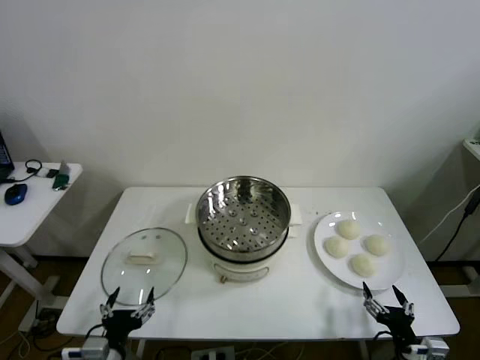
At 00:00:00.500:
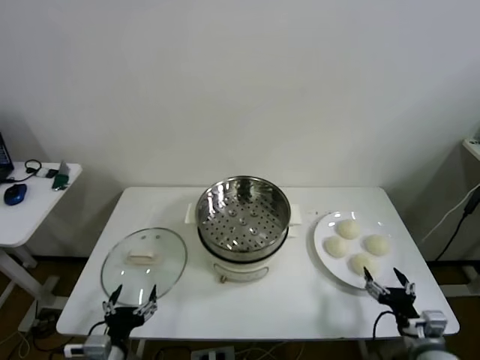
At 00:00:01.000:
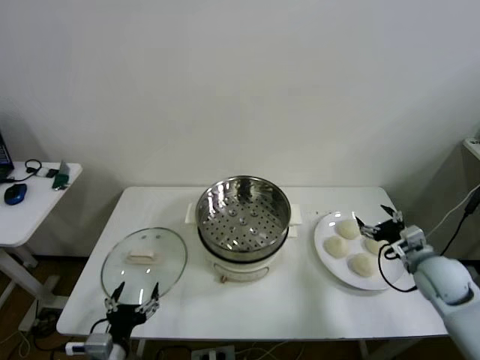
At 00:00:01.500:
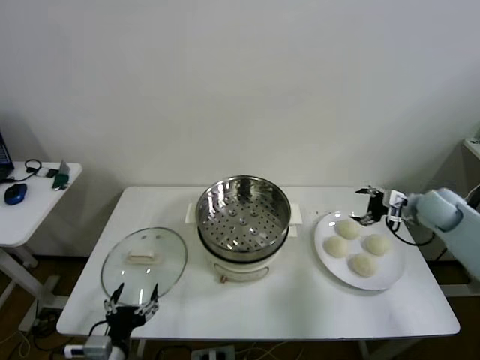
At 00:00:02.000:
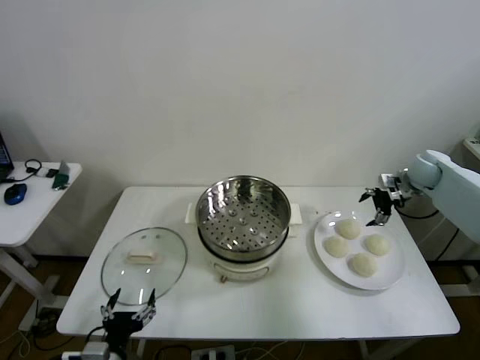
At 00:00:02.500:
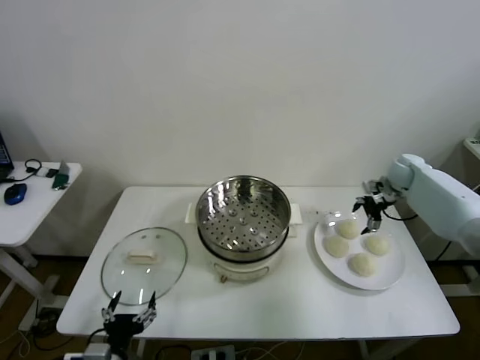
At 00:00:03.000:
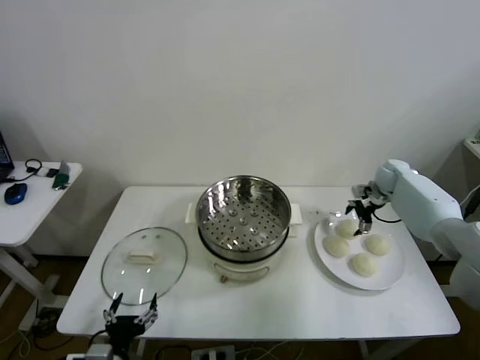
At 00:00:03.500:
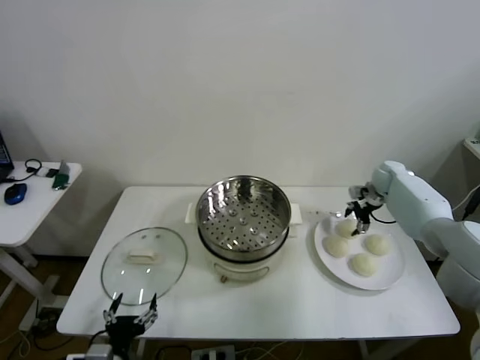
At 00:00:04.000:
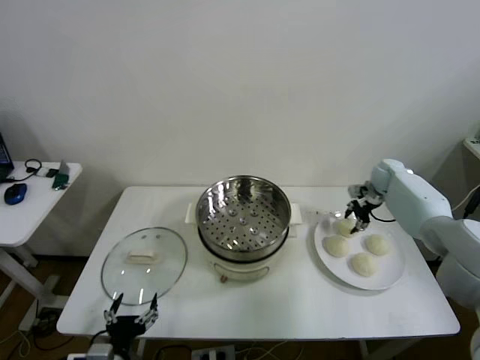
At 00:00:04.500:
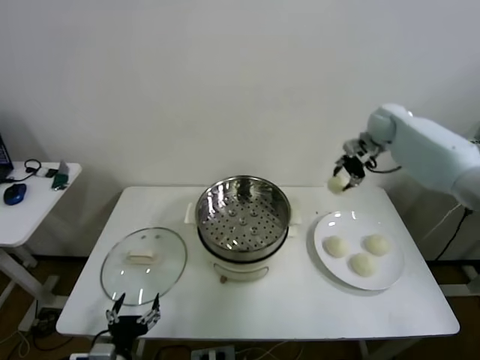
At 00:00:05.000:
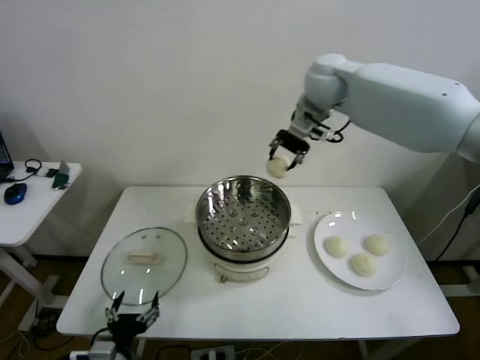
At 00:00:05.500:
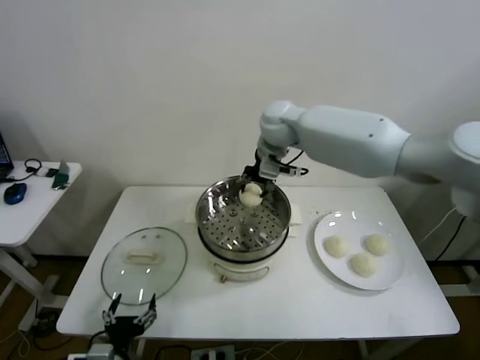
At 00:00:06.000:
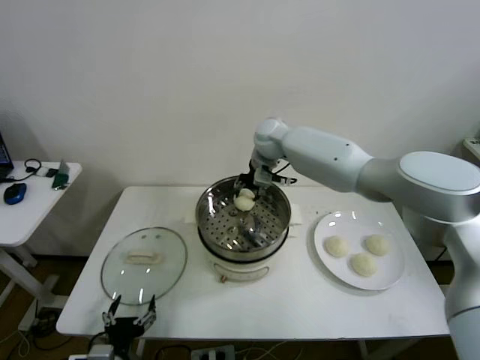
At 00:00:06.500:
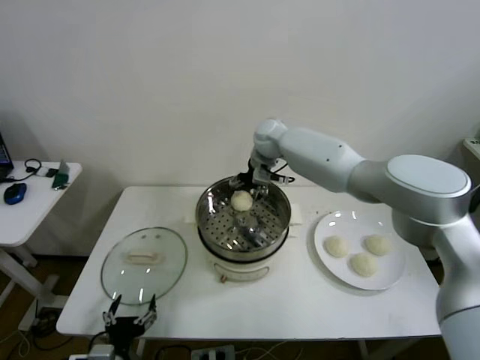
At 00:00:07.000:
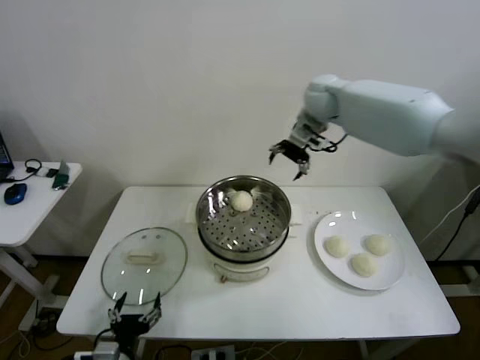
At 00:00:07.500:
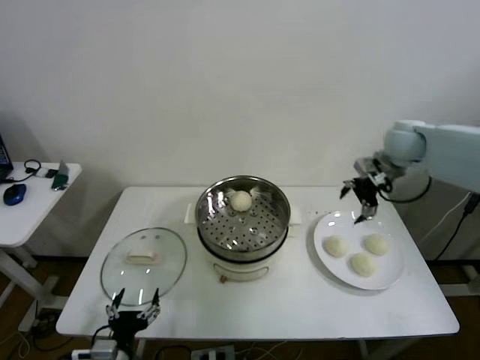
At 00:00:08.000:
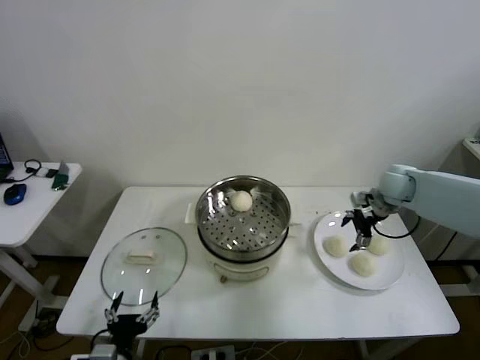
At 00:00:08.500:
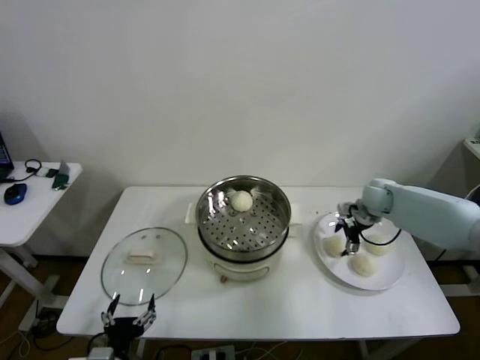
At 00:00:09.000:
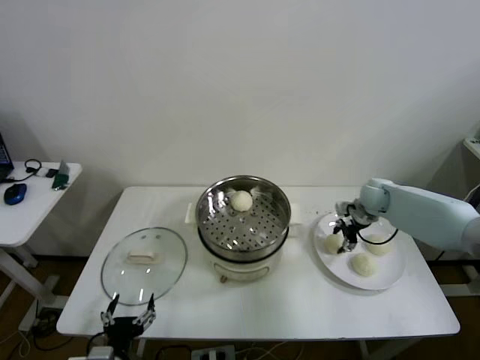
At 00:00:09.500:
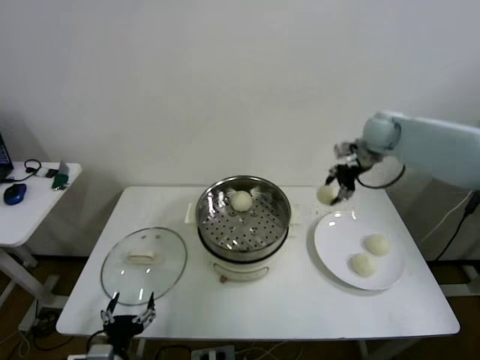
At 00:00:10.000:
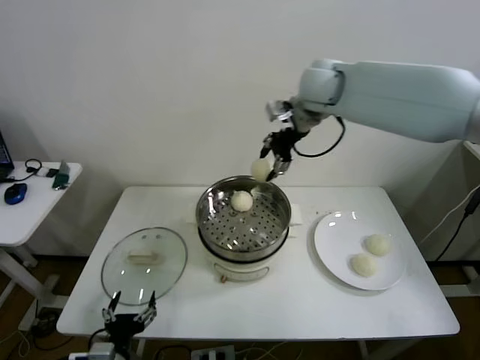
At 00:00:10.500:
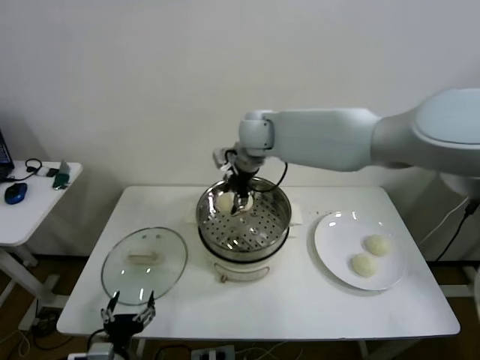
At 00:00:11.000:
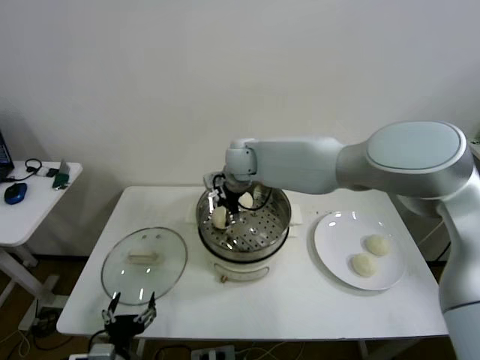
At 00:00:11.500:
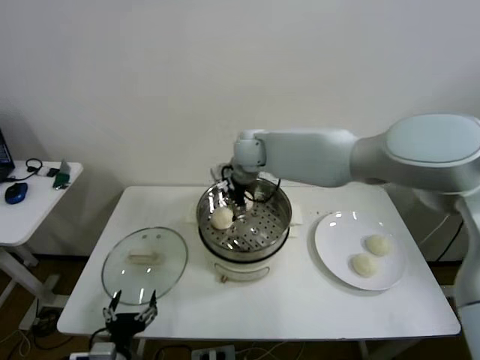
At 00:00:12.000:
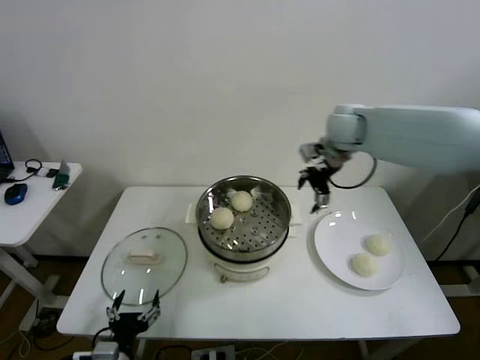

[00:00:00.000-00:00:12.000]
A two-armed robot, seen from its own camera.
Step, 00:00:00.000 to 00:00:03.500: Grasp the baozi in the plate with right gripper.
Step, 00:00:04.000 to 00:00:06.000: Place the baozi on the steamer with right gripper.
Step, 00:00:06.500 to 00:00:09.000: Grasp the baozi in the plate with right gripper.
Step, 00:00:09.500 to 00:00:11.000: Place the baozi on the steamer with right gripper.
00:00:02.000 to 00:00:04.000: The right gripper travels downward by about 5 cm, and closes up.
00:00:04.000 to 00:00:06.000: The right gripper moves to the left, about 35 cm.
00:00:06.000 to 00:00:08.000: The right gripper goes about 30 cm to the right, and opens up.
00:00:08.000 to 00:00:10.000: The right gripper moves to the left and upward, roughly 35 cm, and closes.
00:00:10.000 to 00:00:12.000: The right gripper travels to the right and downward by roughly 15 cm, and opens.

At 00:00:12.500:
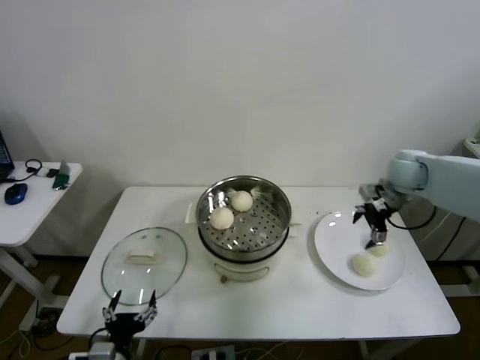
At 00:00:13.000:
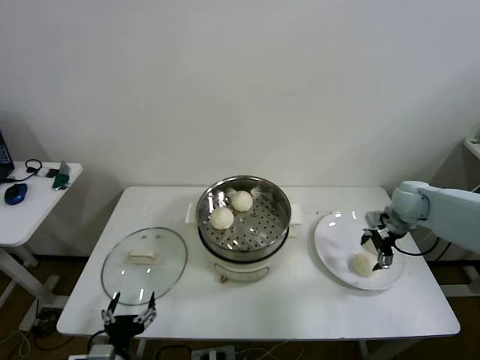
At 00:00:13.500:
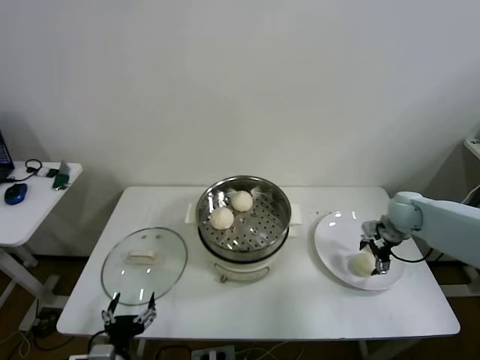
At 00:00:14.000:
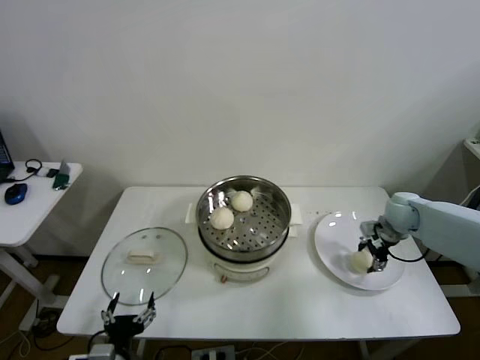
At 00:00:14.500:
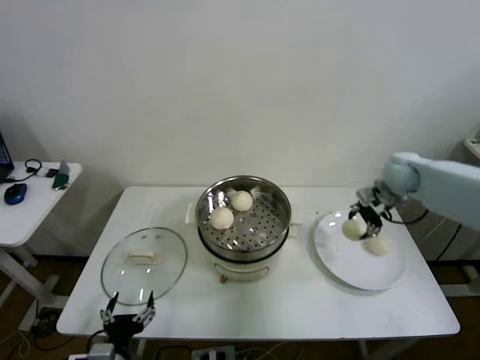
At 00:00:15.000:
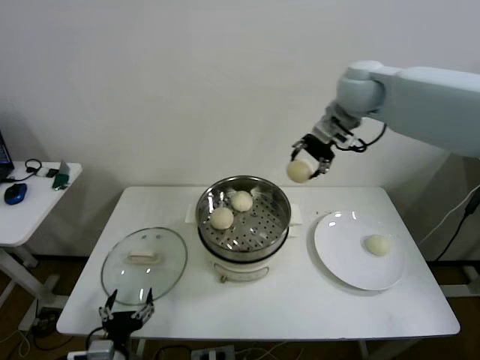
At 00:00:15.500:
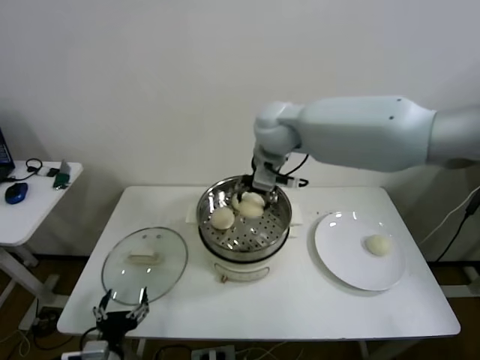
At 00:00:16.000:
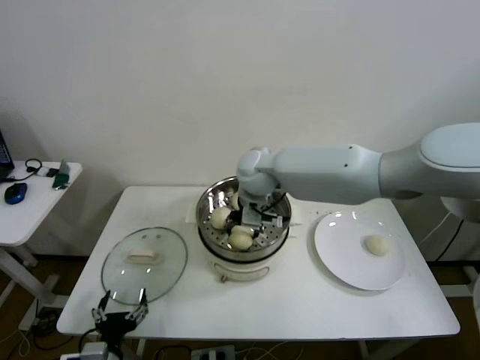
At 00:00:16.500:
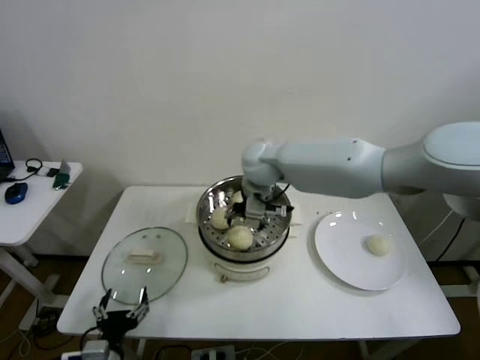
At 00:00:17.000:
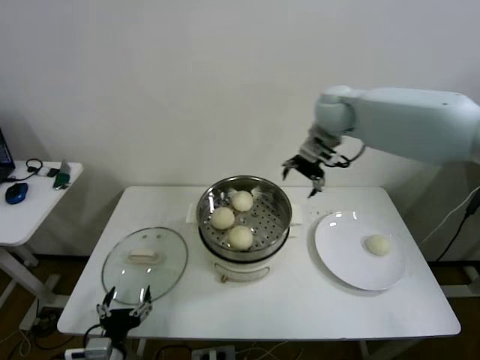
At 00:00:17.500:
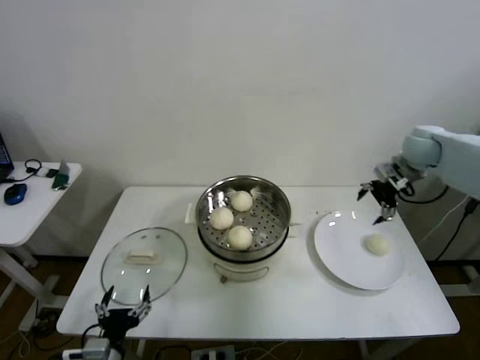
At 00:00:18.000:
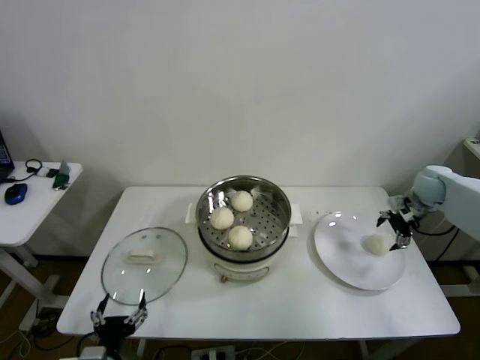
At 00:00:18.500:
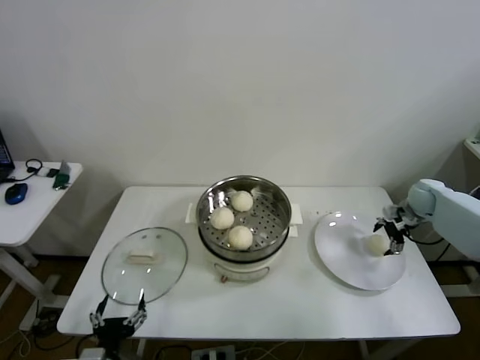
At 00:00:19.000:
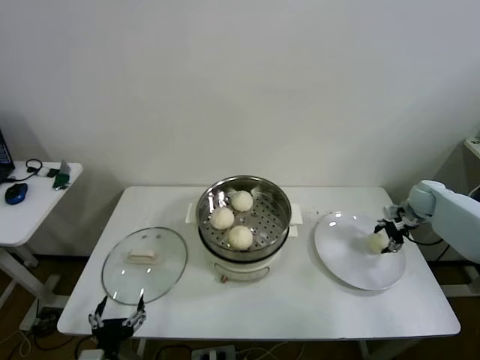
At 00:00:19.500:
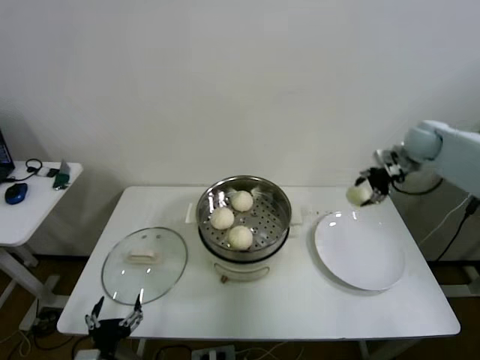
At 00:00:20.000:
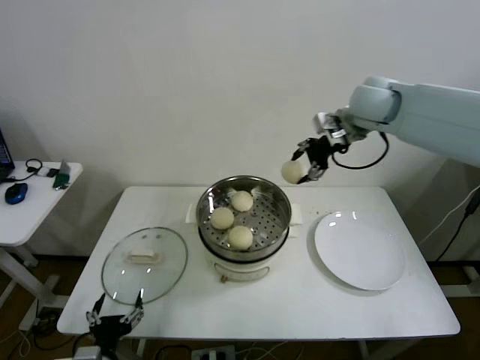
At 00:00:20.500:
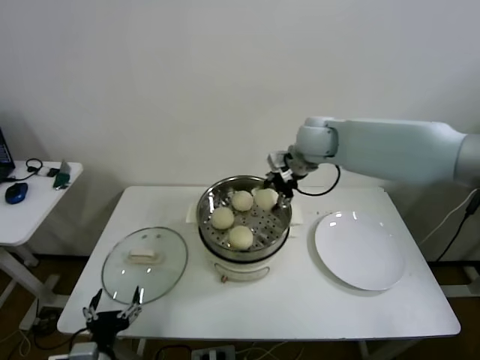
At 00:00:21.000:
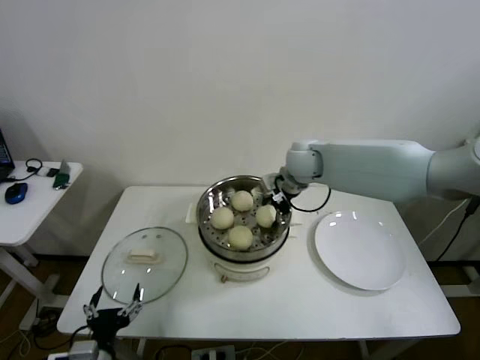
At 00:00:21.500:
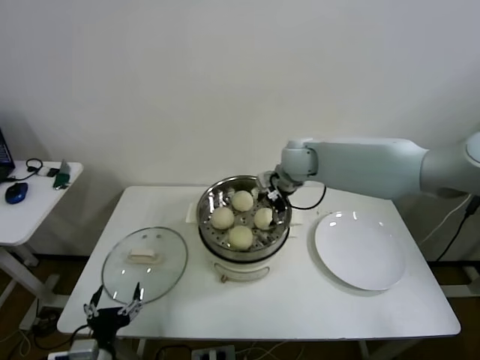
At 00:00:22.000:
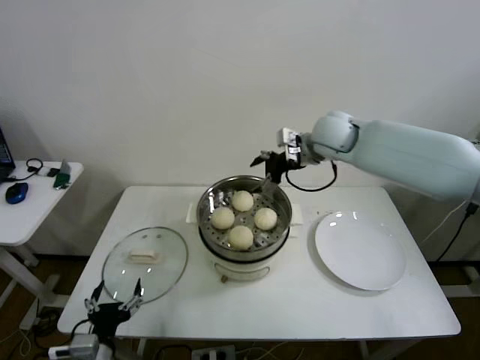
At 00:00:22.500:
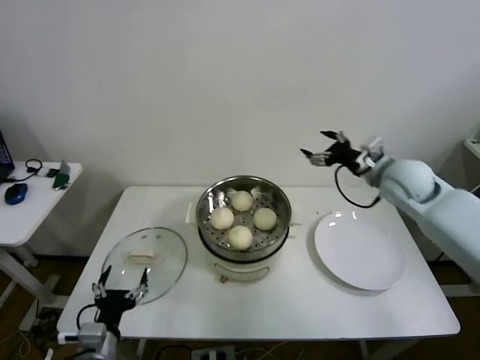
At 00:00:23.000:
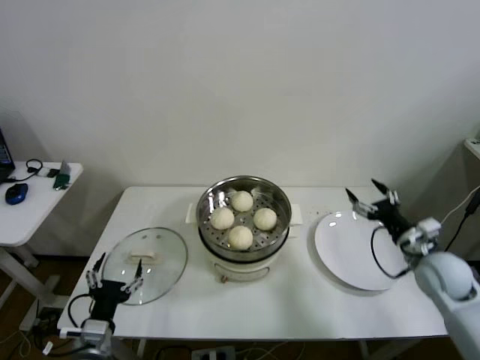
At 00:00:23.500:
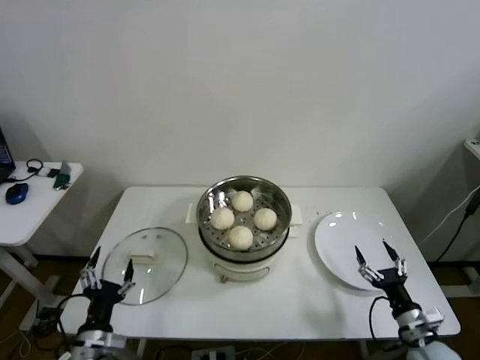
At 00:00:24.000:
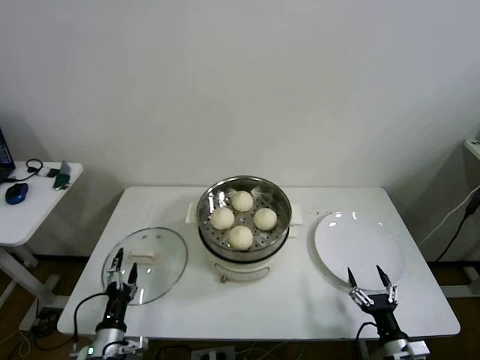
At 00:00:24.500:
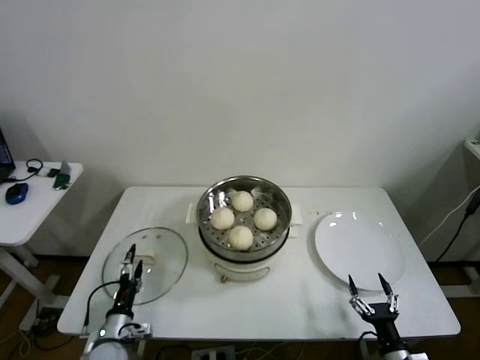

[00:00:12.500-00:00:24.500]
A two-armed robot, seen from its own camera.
Step, 00:00:14.500 to 00:00:16.000: Place the baozi on the steamer with right gripper.
Step, 00:00:16.500 to 00:00:18.500: Grasp the baozi in the plate with right gripper.
Step, 00:00:19.000 to 00:00:21.000: Place the baozi on the steamer with right gripper.
00:00:12.500 to 00:00:14.500: The right gripper reaches about 10 cm downward, then returns, and closes up.
00:00:14.500 to 00:00:16.500: The right gripper heads to the left, covering about 30 cm, and opens.
00:00:16.500 to 00:00:18.500: The right gripper is displaced to the right by some 40 cm.
00:00:18.500 to 00:00:20.500: The right gripper shifts approximately 40 cm to the left and upward, and closes its fingers.
00:00:20.500 to 00:00:22.500: The right gripper goes about 20 cm to the right and backward, and opens up.
00:00:22.500 to 00:00:24.500: The right gripper travels backward and downward by about 50 cm. Meanwhile the left gripper is displaced downward and forward by roughly 15 cm.

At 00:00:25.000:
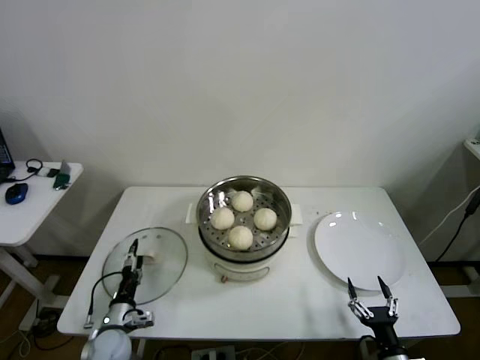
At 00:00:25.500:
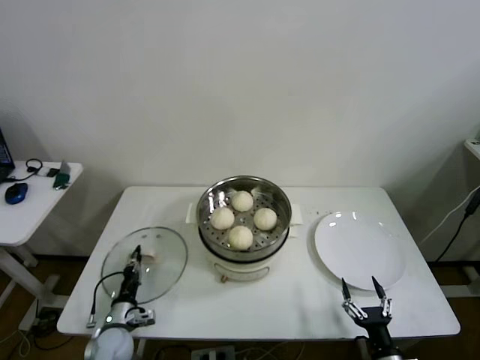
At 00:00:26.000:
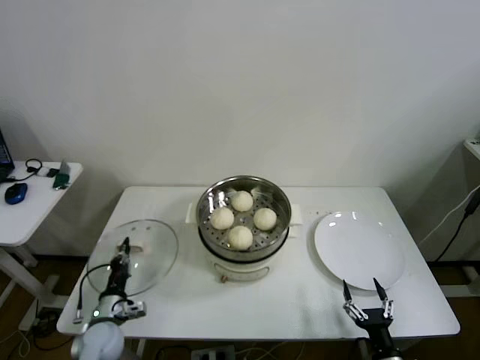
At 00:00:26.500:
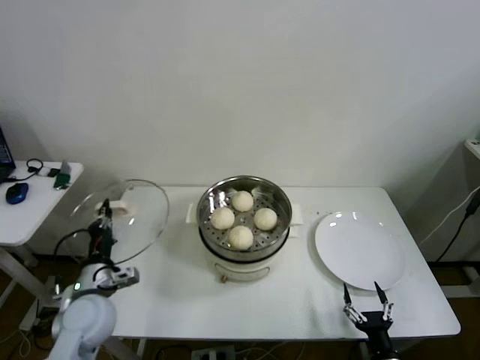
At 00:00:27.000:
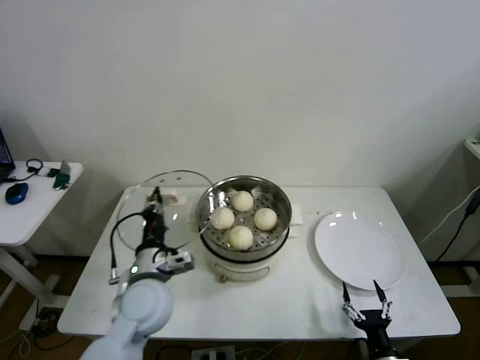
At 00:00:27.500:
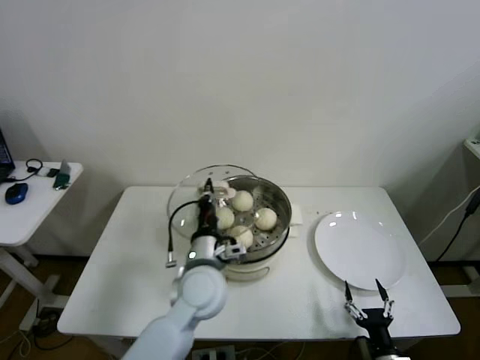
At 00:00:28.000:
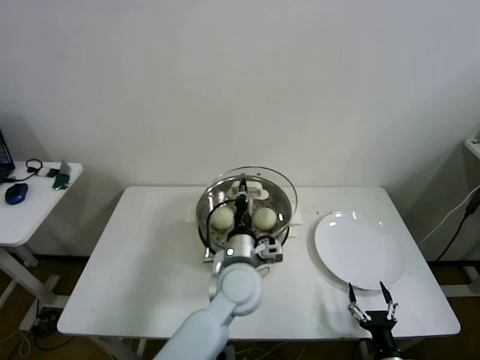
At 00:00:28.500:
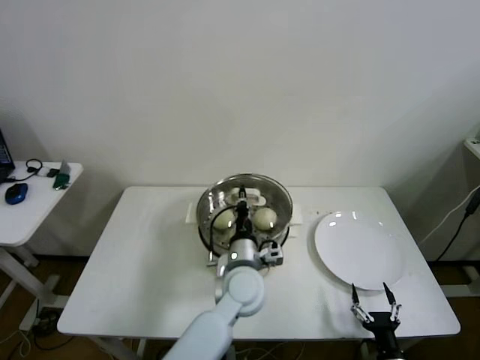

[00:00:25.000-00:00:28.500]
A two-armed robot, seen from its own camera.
00:00:25.000 to 00:00:27.000: The left gripper is displaced upward and to the right by about 25 cm, and closes up.
00:00:27.000 to 00:00:28.500: The left gripper shifts about 20 cm to the right.
